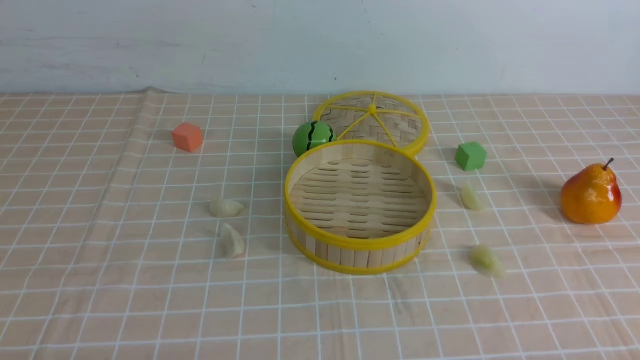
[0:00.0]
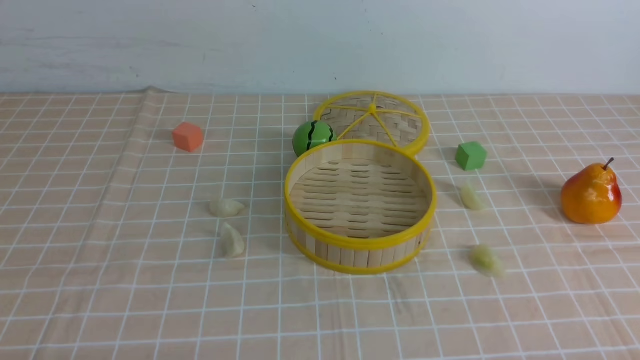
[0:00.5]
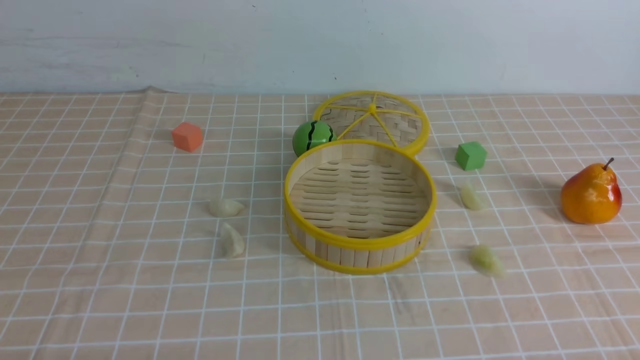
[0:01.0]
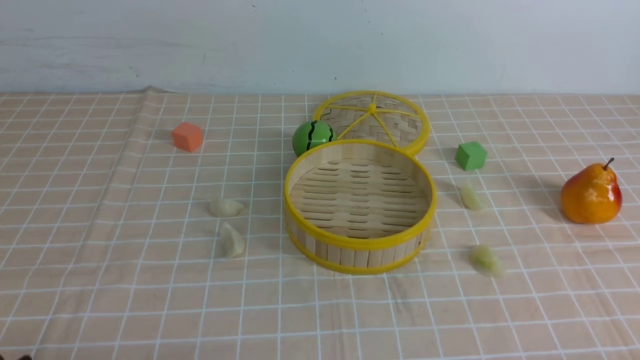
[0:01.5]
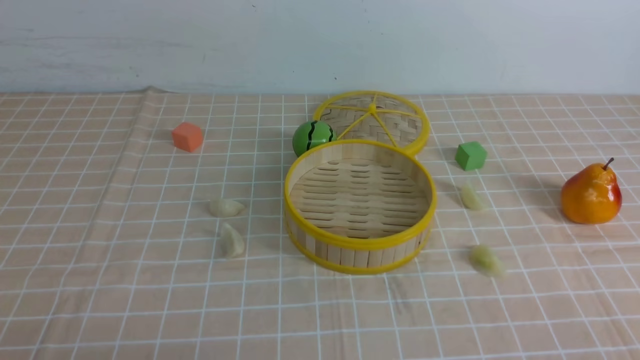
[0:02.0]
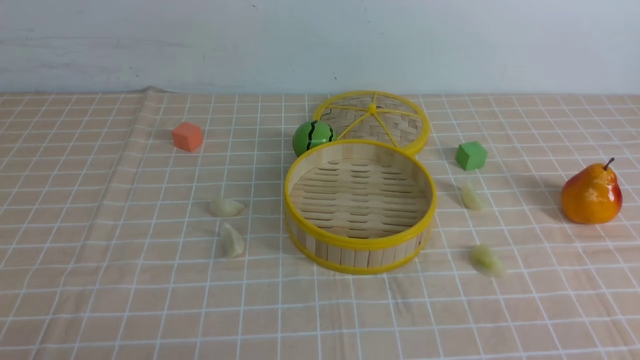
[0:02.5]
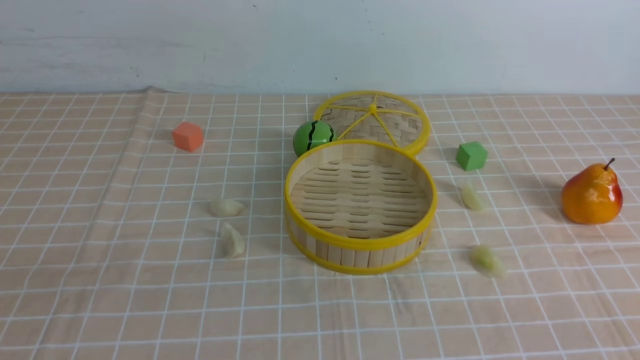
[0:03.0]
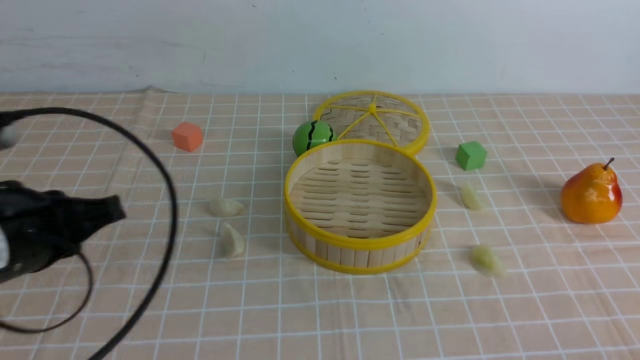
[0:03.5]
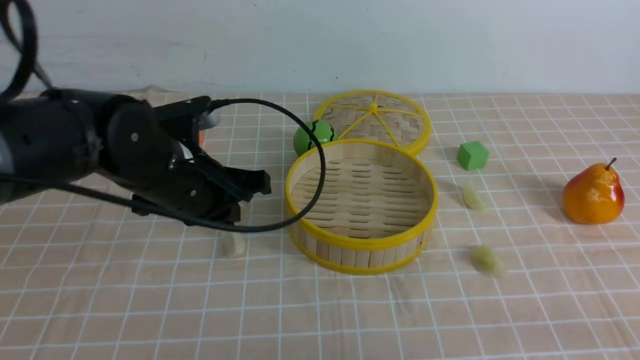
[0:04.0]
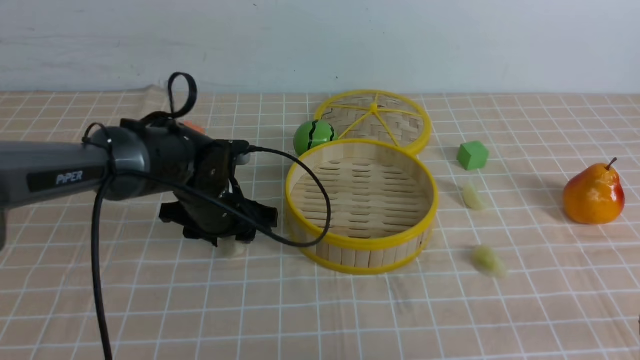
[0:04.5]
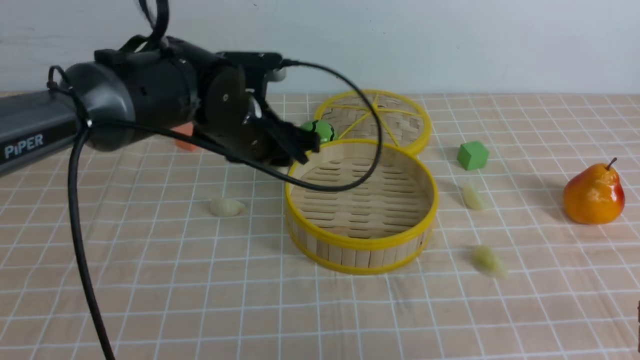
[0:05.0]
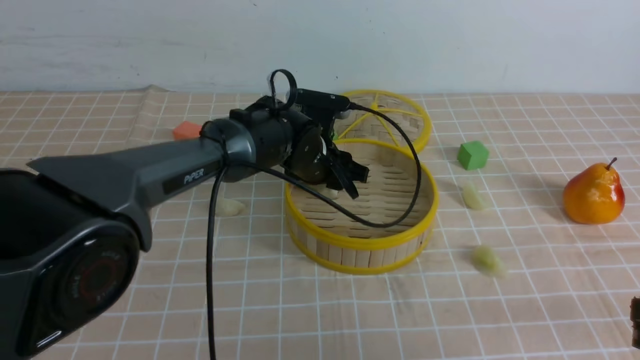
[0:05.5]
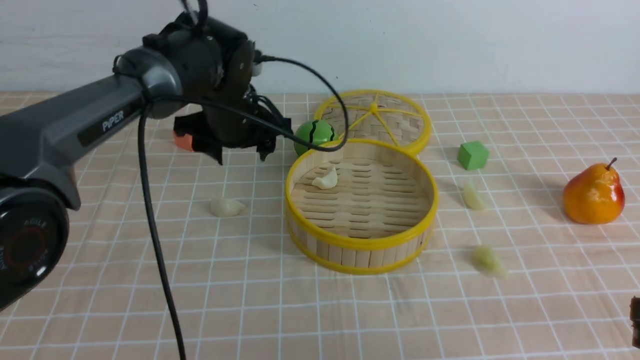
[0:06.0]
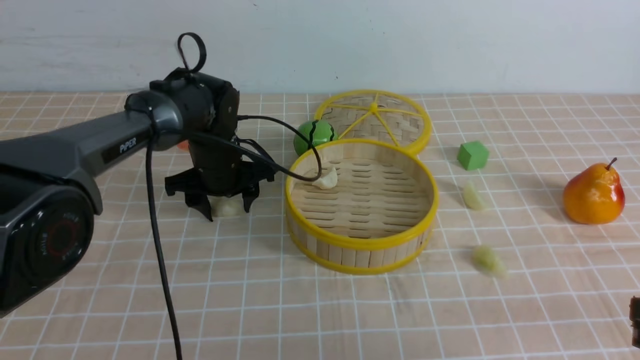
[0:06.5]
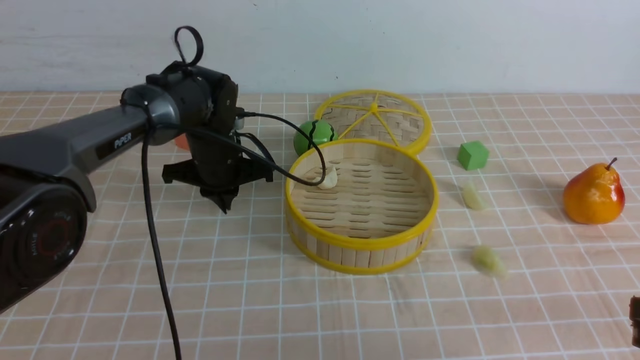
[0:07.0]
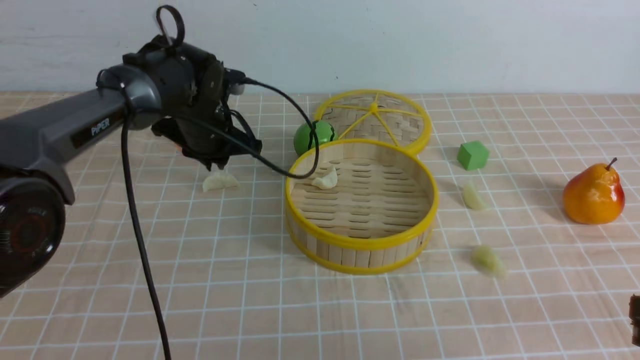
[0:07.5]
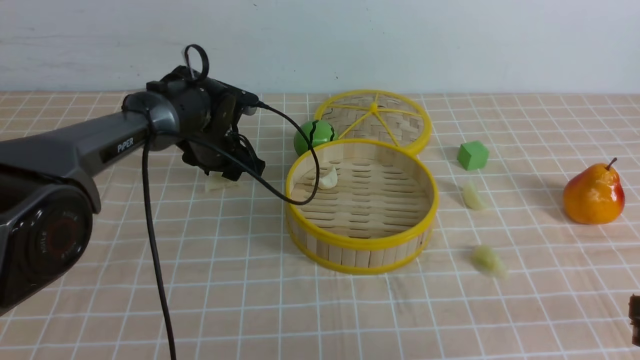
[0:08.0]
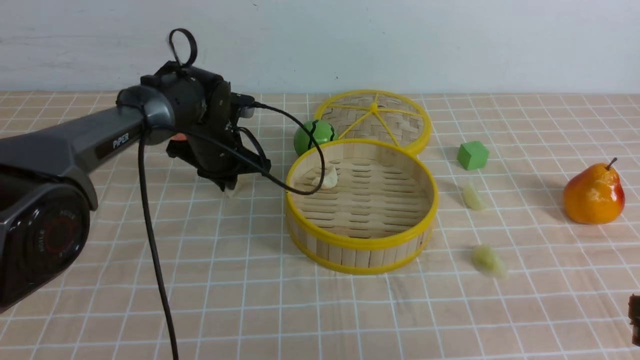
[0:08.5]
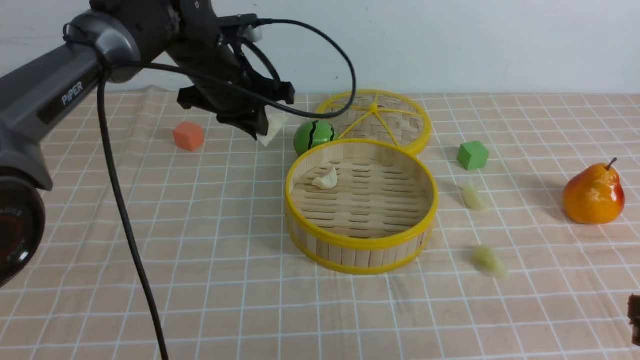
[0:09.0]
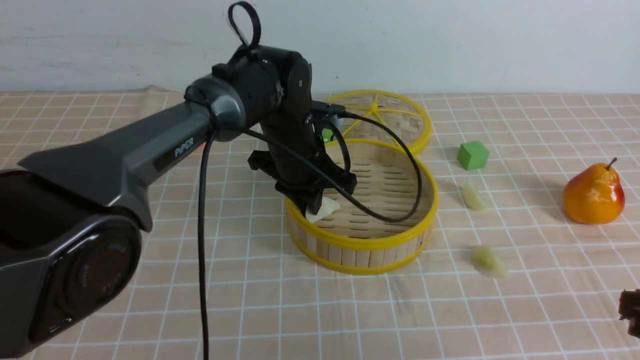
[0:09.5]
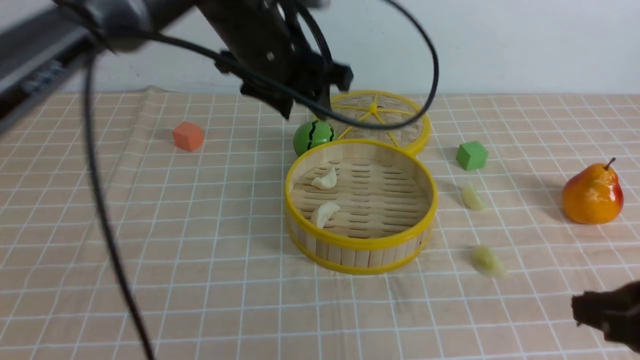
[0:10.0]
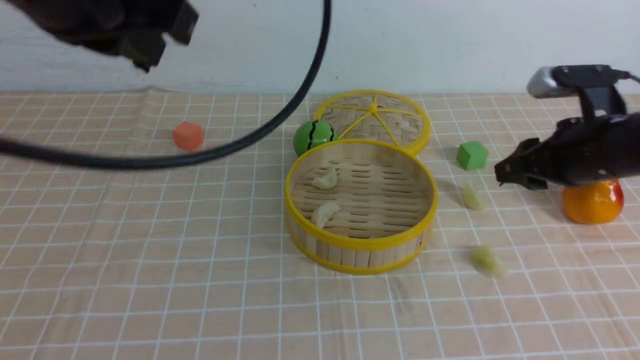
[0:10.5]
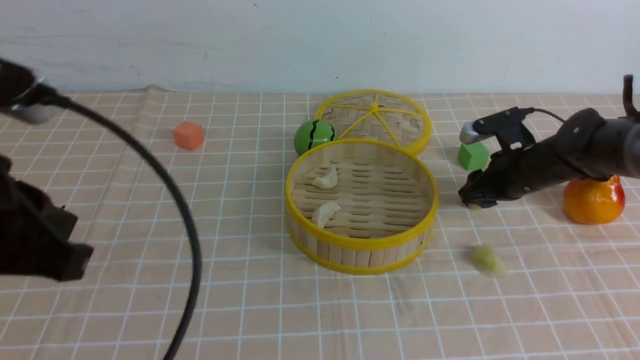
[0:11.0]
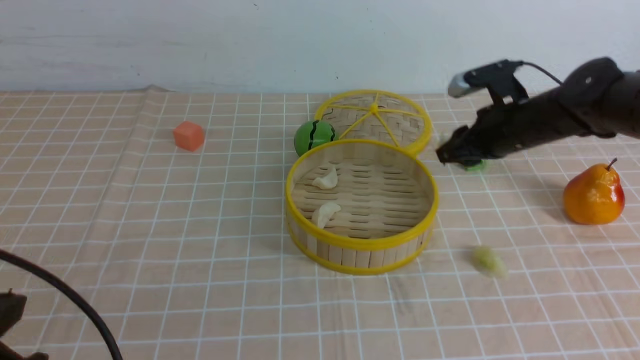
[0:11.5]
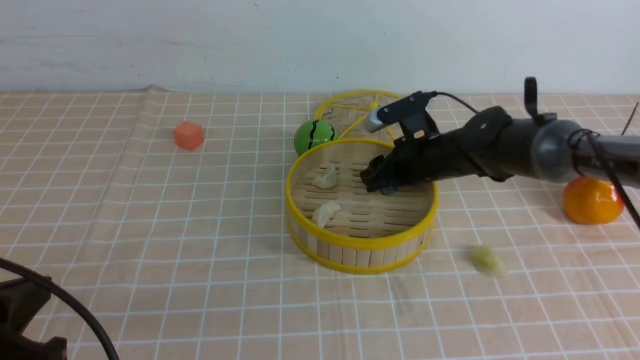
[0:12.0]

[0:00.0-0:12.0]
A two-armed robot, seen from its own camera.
Task of the whole recording: put the dumplings into the steamer on the table with the brown tablecloth.
Step, 0:00.0 to 0:04.5: use the left arm to grab a dumpling.
Step, 0:05.0 to 0:05.5: use the left arm to put the dumpling into the steamer.
Step, 0:06.0 to 0:08.5: use the left arm to grab a dumpling.
Step, 0:09.0 to 0:09.5: use the left arm to put the dumpling into the steamer.
Step, 0:10.0 to 0:11.0: use the right arm to grab a dumpling.
0:02.0 to 0:04.0: The right gripper is displaced forward by approximately 5 cm, and closes, while the left gripper shifts some 25 cm forward and to the right.
0:04.0 to 0:06.0: The left gripper is displaced forward by roughly 15 cm, and opens its fingers.
0:06.0 to 0:08.0: The left gripper swings up and down, approximately 5 cm each way, with 2 reversals, and closes, then opens again.
0:08.0 to 0:10.0: The left gripper goes approximately 20 cm upward, backward and to the right, and closes, then reopens.
0:10.0 to 0:12.0: The left gripper shifts approximately 35 cm backward and to the left, and closes up. Meanwhile the right gripper moves forward and to the left, approximately 35 cm, and opens its fingers.

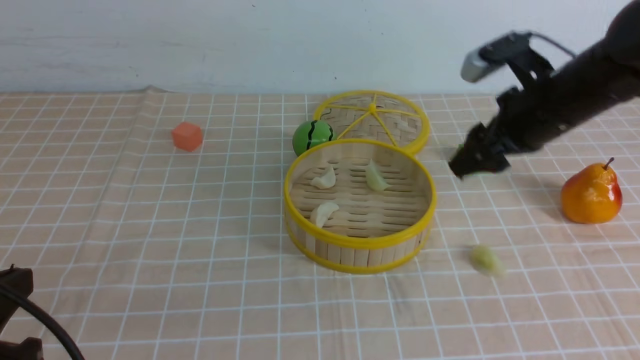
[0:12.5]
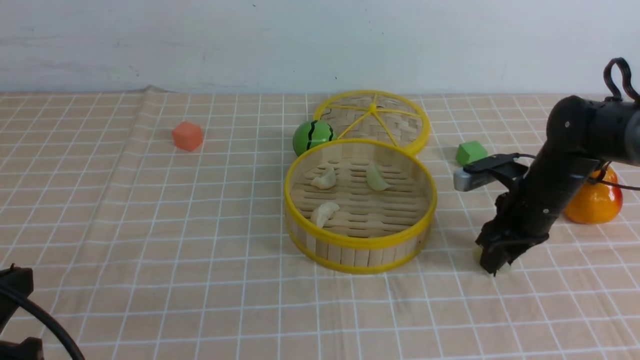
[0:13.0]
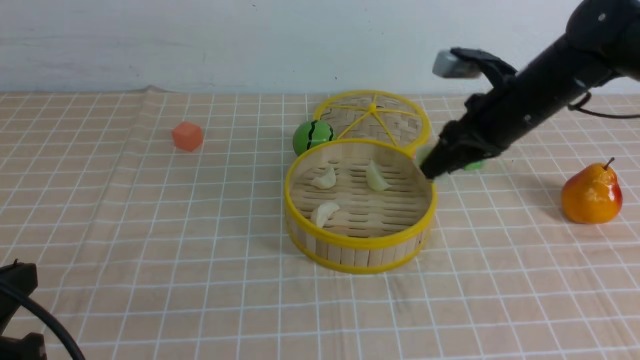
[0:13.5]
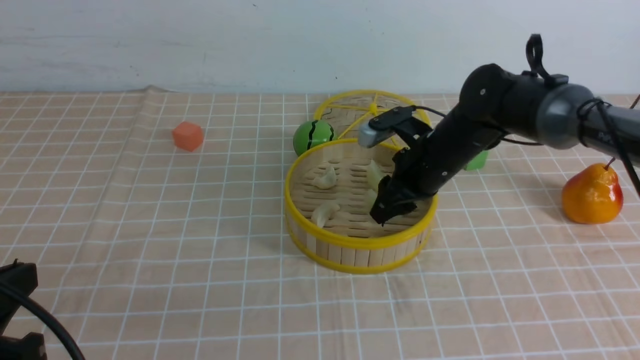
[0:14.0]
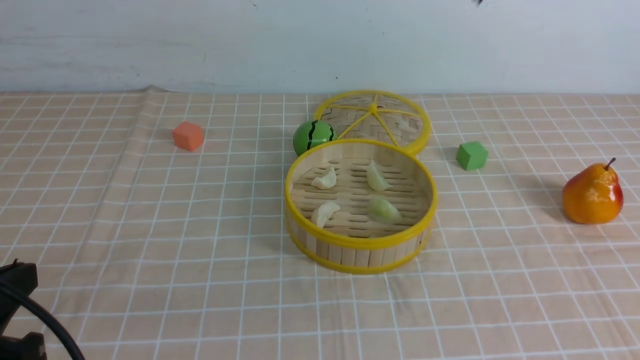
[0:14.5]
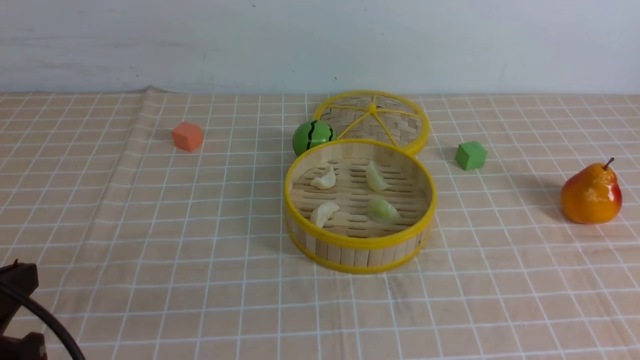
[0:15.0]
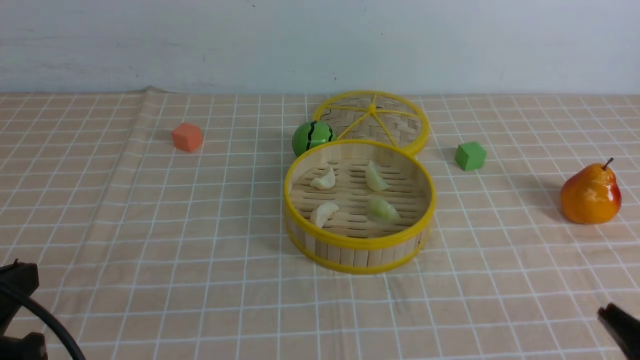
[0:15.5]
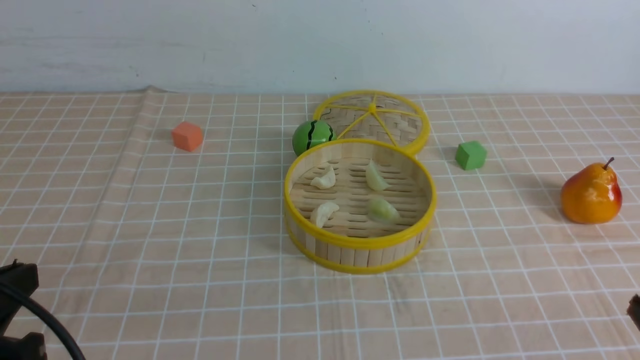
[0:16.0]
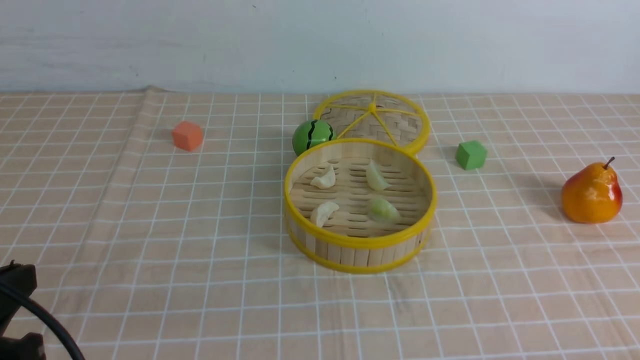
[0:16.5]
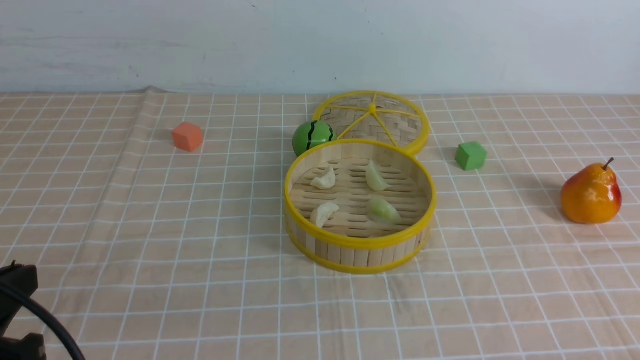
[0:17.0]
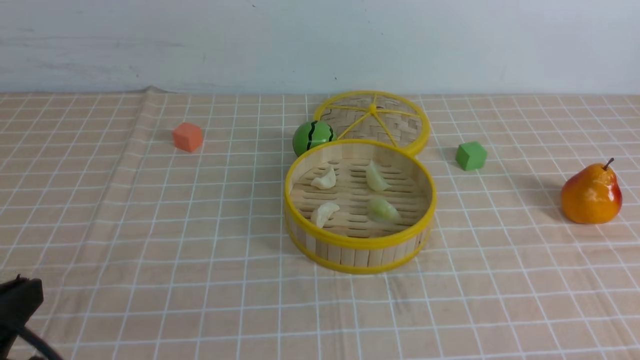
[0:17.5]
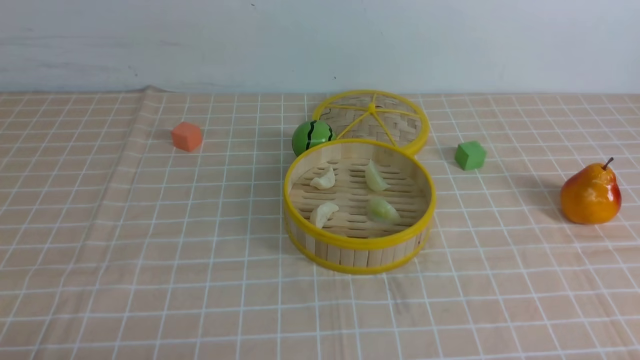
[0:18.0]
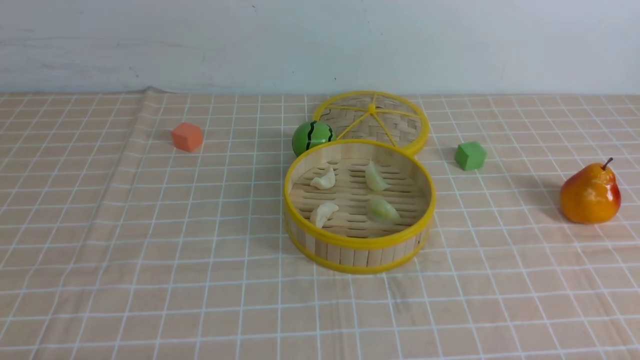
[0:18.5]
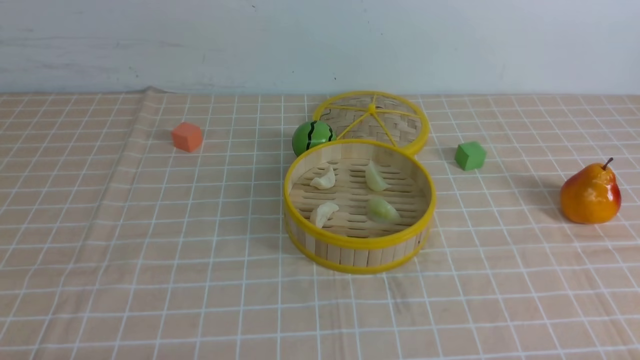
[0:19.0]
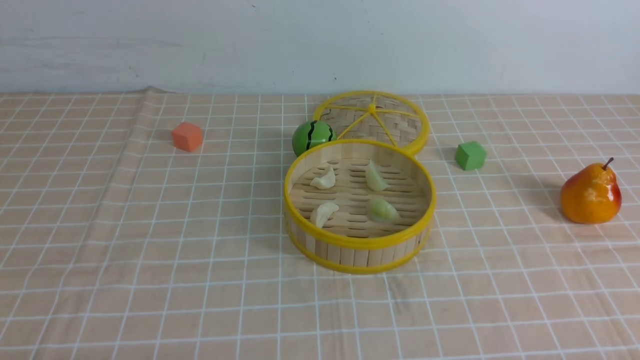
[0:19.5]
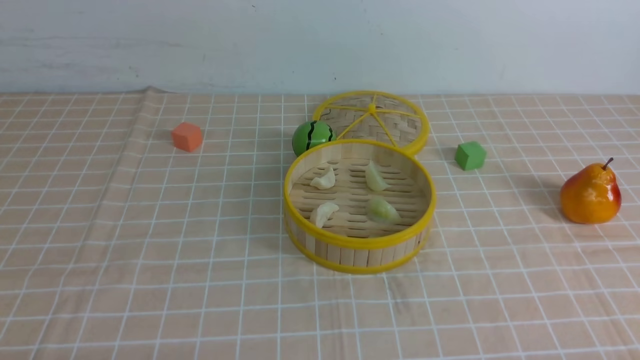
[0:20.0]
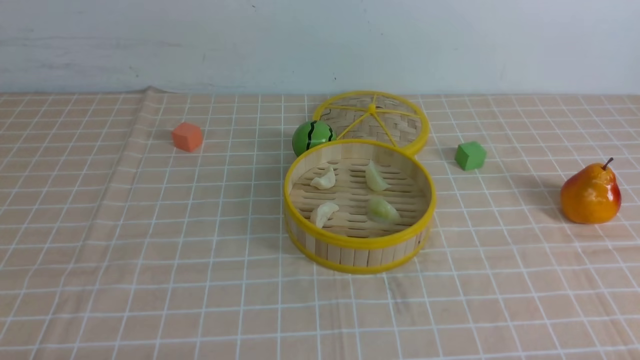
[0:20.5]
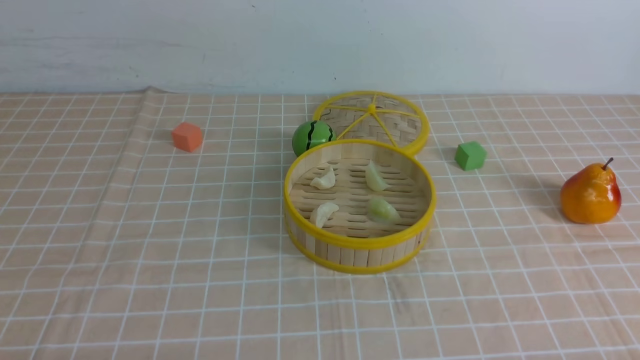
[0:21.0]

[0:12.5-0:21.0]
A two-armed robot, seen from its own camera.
Task of the whole recording: put the dumplings into the steamer on the table with the brown tablecloth.
Step, 0:12.5 to 0:13.0: use the right arm to grab a dumpling.
Step, 0:13.5 to 0:14.0: use the right arm to put the dumpling into the steamer.
0:12.5 to 0:14.5: The right gripper shifts some 15 cm upward, and closes up.
0:16.5 to 0:19.0: The left gripper goes some 10 cm downward.
0:19.0 to 0:21.0: The two grippers keep their place.
